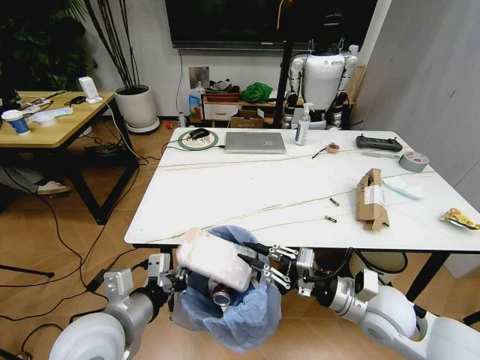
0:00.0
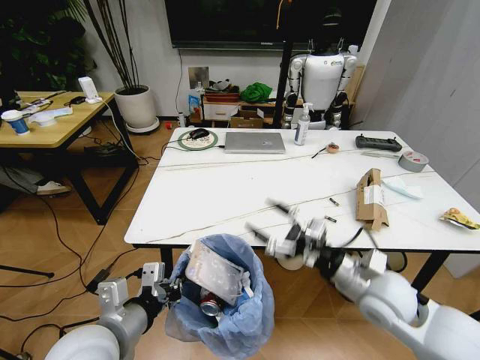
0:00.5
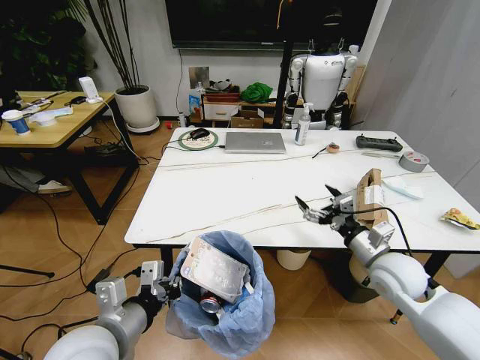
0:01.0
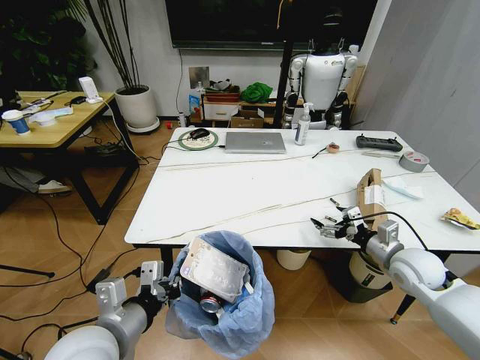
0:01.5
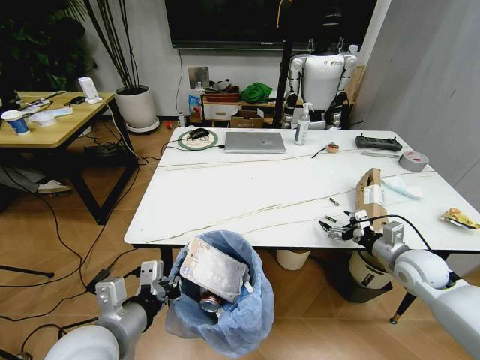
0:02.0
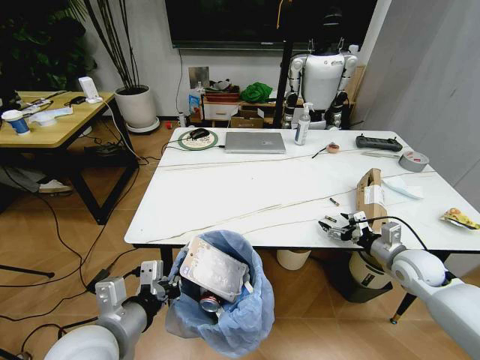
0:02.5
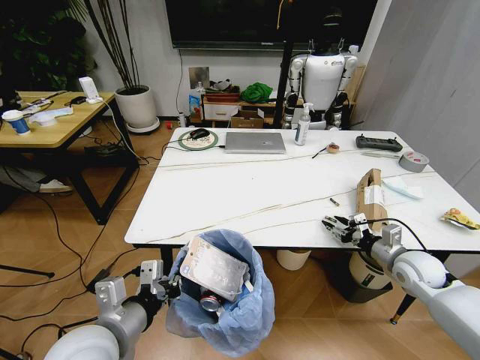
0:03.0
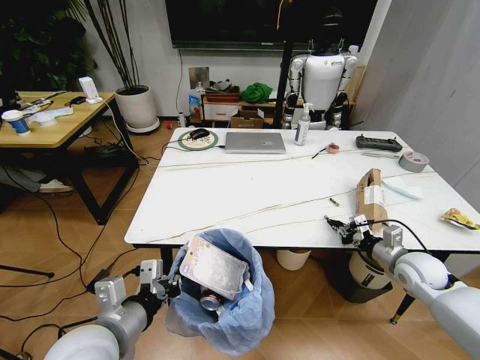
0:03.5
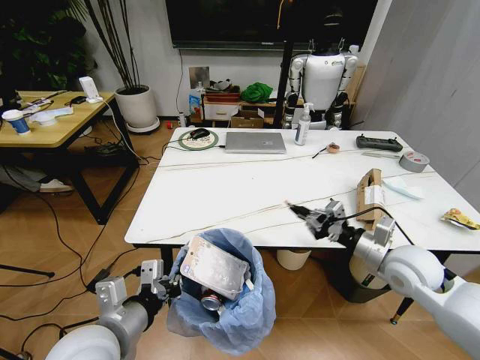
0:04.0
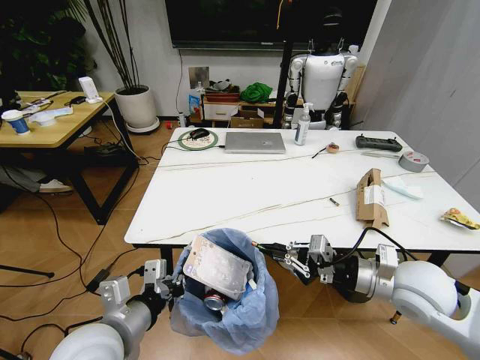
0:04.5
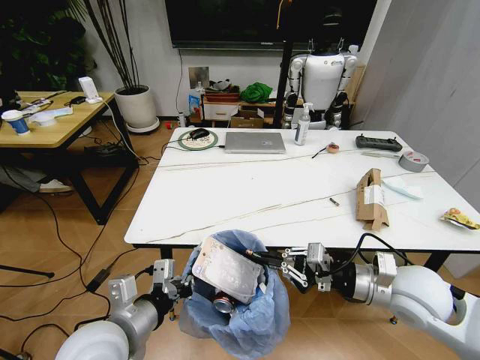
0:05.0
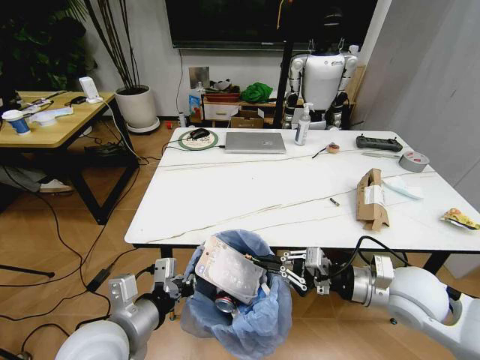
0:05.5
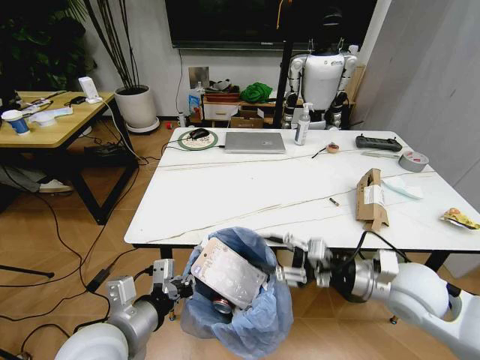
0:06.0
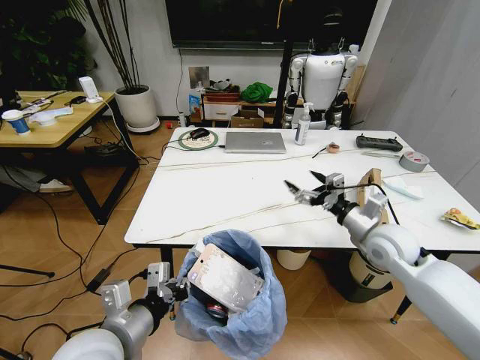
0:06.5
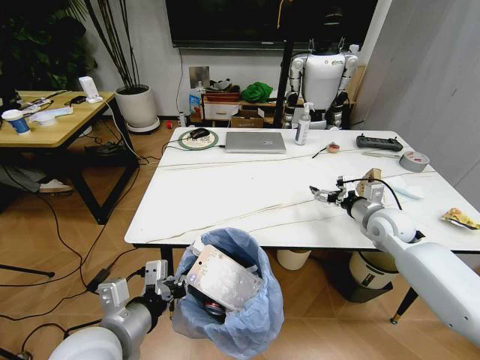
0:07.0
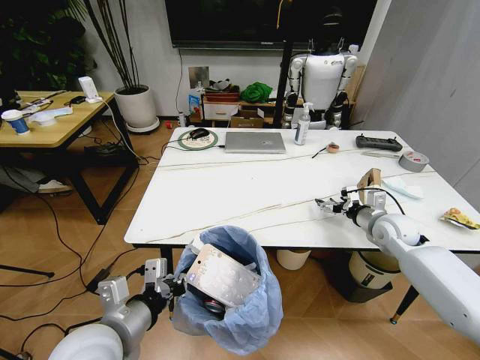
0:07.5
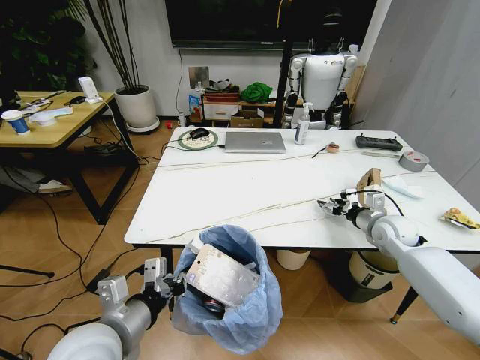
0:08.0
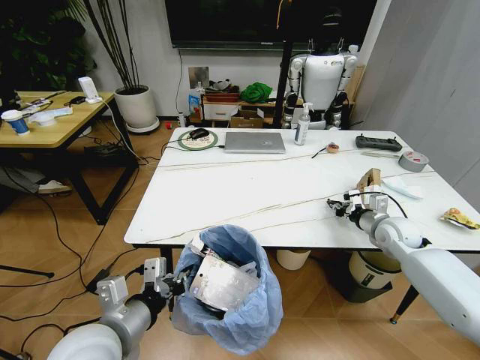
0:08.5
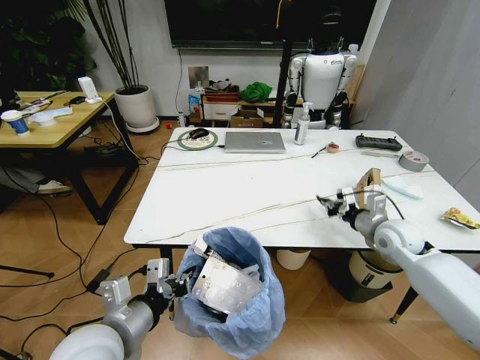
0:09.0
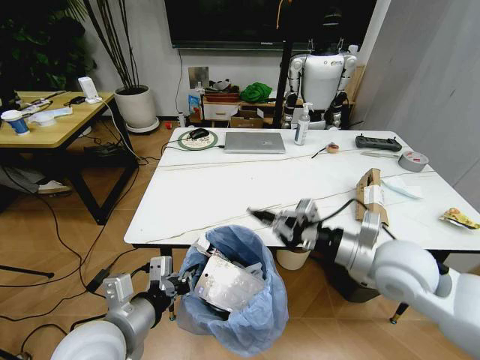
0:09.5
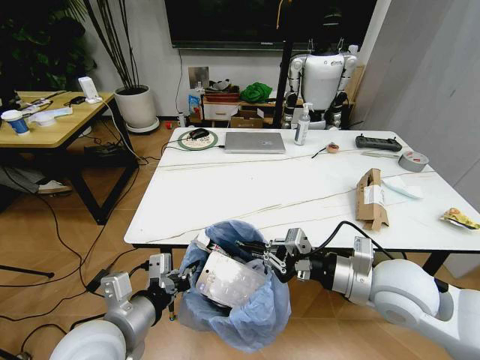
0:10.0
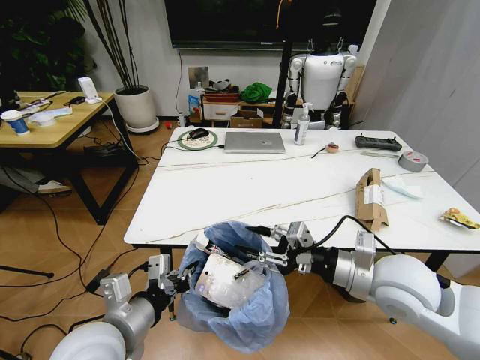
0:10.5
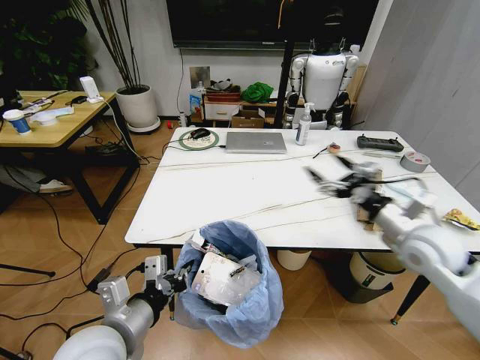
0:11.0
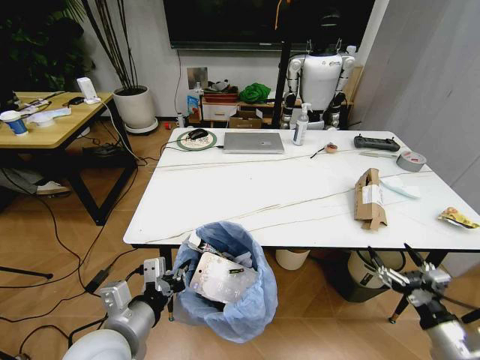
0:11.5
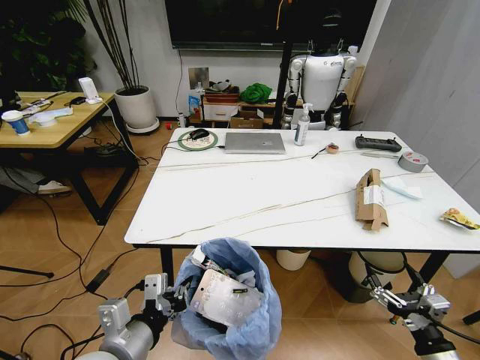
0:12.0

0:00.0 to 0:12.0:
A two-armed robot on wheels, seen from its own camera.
Task of the whole recording: Pick up the trash bin and place the trash from the table into it.
0:00.0 to 0:02.0: The right gripper is displaced to the right and forward by some 20 cm, and opens.
0:02.0 to 0:04.0: The right gripper heads to the left and upward, covering roughly 10 cm, and closes up.
0:04.0 to 0:06.0: The right gripper travels backward and to the left by approximately 10 cm, and opens its fingers.
0:06.0 to 0:08.0: The right gripper travels forward, to the right and downward by about 20 cm.
0:08.0 to 0:10.0: The right gripper travels backward, to the left and upward by some 25 cm, and closes up.
0:10.0 to 0:12.0: The right gripper shifts roughly 25 cm downward, backward and to the right, and opens up.

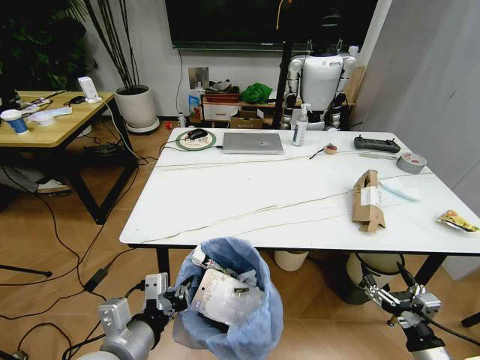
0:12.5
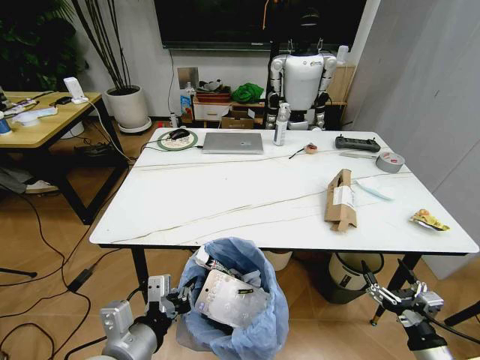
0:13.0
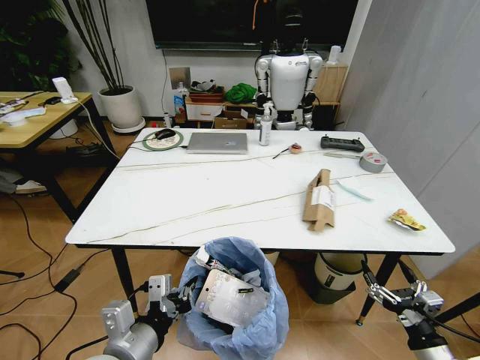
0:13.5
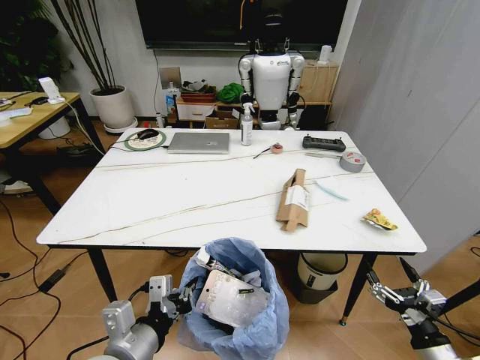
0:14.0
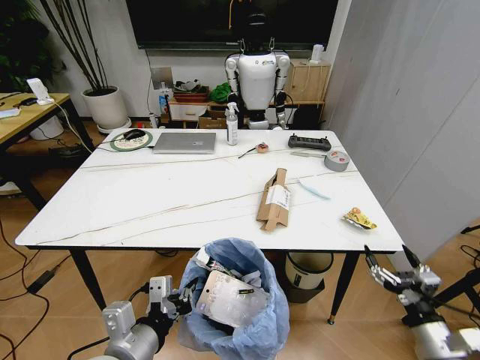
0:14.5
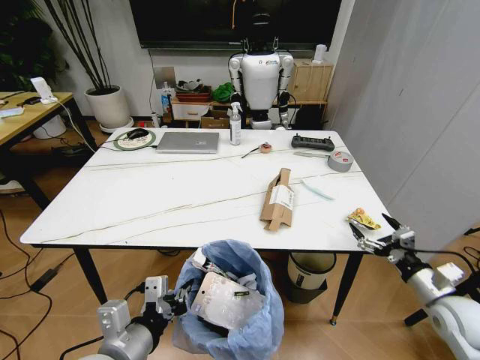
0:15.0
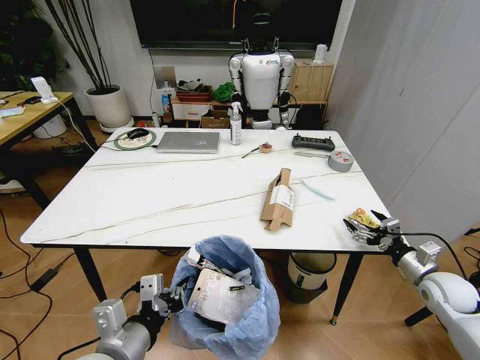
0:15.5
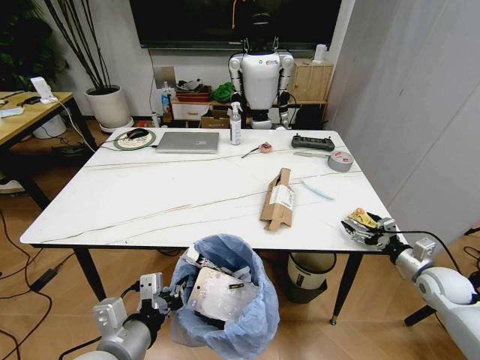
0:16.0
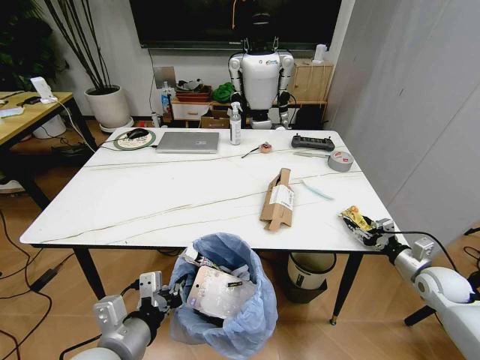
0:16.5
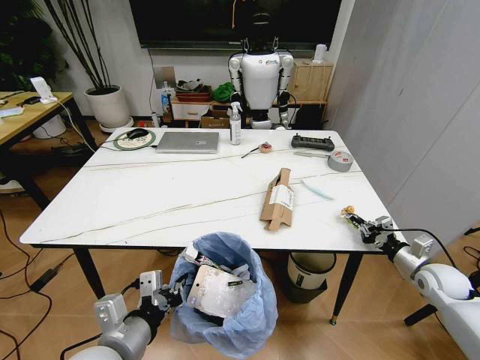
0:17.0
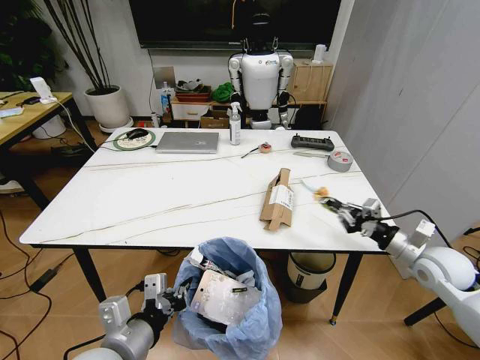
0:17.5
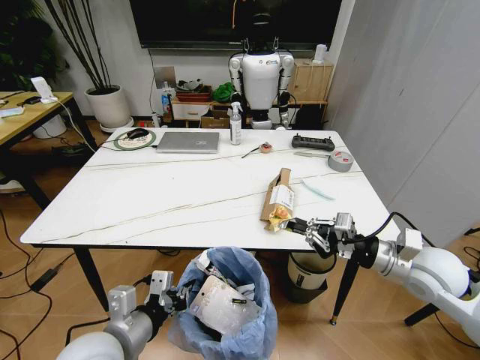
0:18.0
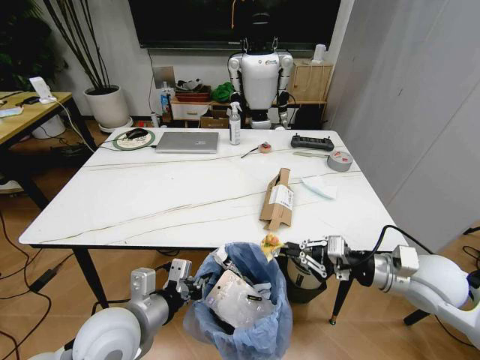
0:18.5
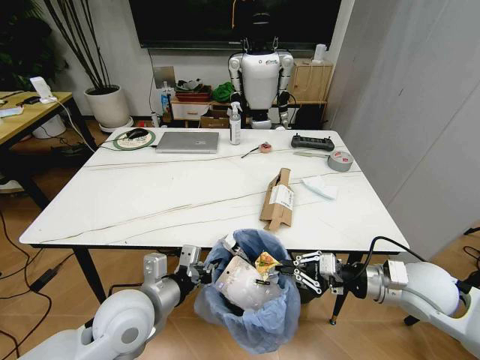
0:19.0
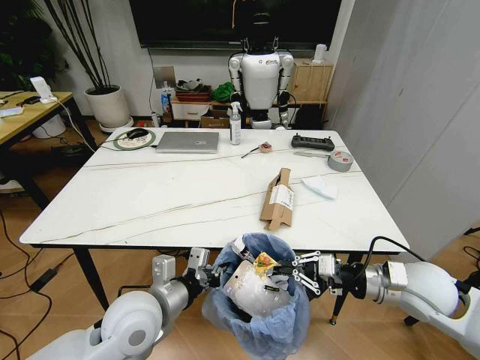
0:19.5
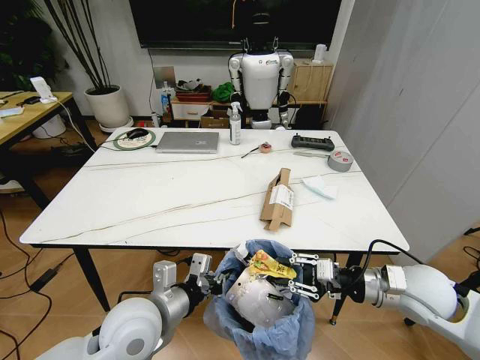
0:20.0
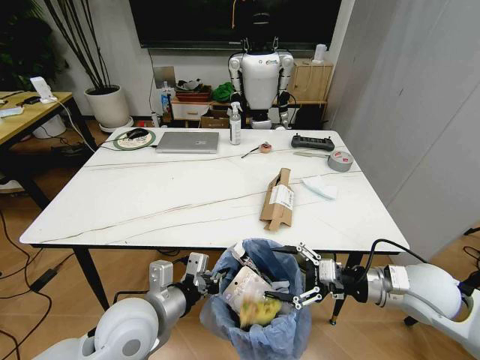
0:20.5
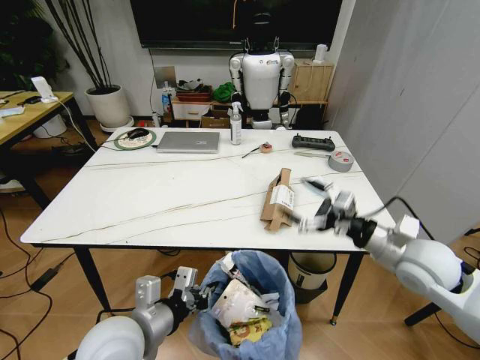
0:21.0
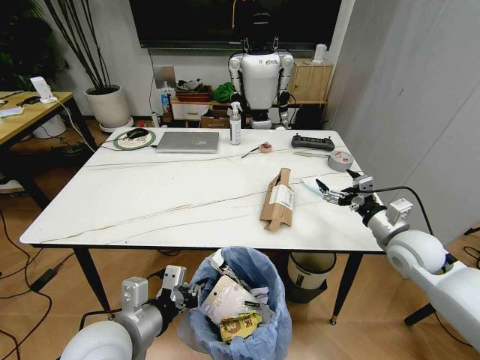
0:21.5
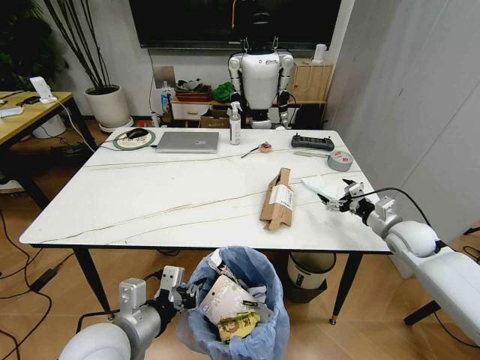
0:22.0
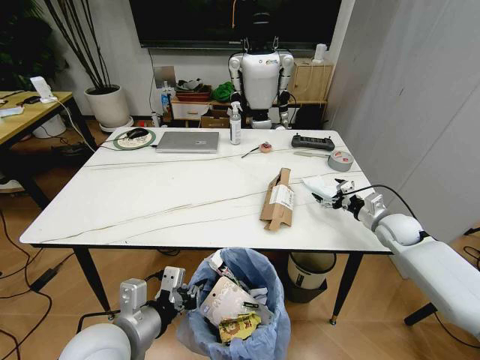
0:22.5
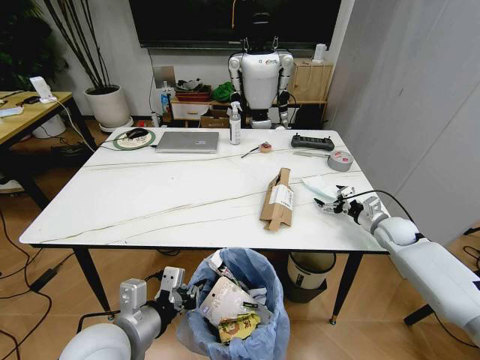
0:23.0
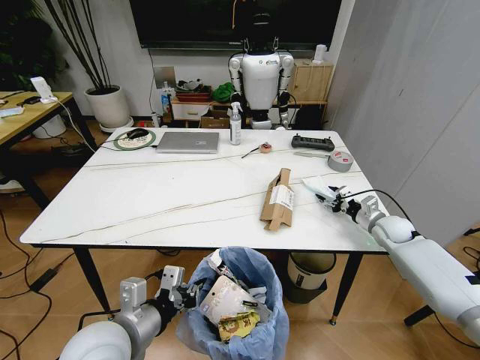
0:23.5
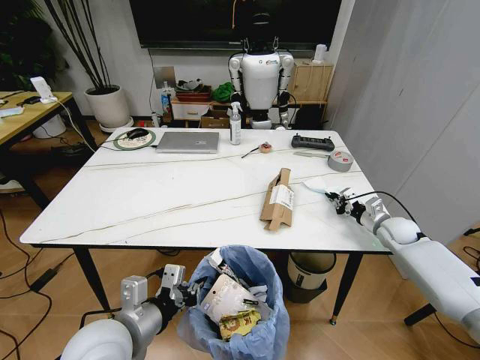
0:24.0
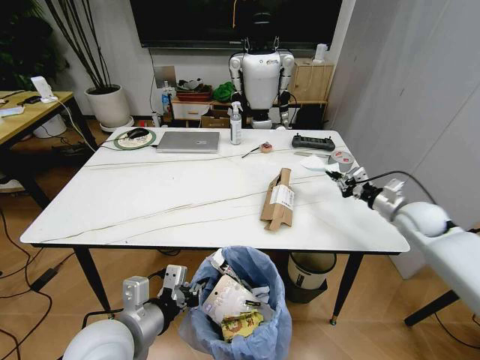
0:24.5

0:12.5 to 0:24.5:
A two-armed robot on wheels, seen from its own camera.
Task of the whole recording: Pick up the trash bin and place the trash from the table into it.
0:12.5 to 0:14.5: The right gripper changes place by roughly 5 cm.
0:14.5 to 0:16.5: The right gripper moves forward and to the right, about 20 cm, and closes up.
0:16.5 to 0:18.5: The left gripper shifts approximately 5 cm forward, while the right gripper moves to the left and upward, roughly 20 cm, and closes its fingers.
0:18.5 to 0:20.5: The right gripper opens its fingers.
0:20.5 to 0:22.5: The left gripper ends up approximately 5 cm from where it was; the right gripper is displaced forward, to the right and downward by approximately 20 cm.
0:22.5 to 0:24.5: The right gripper goes some 5 cm upward, and closes up.

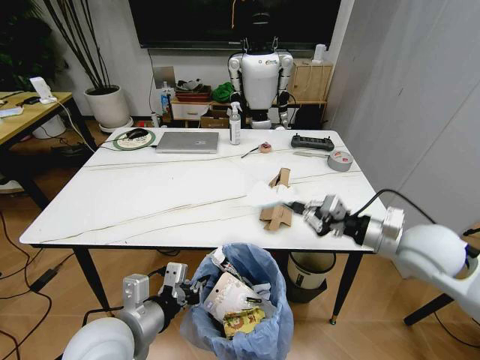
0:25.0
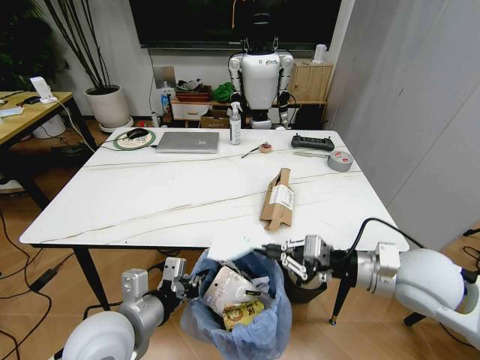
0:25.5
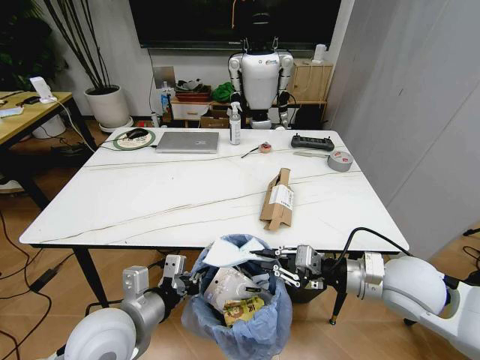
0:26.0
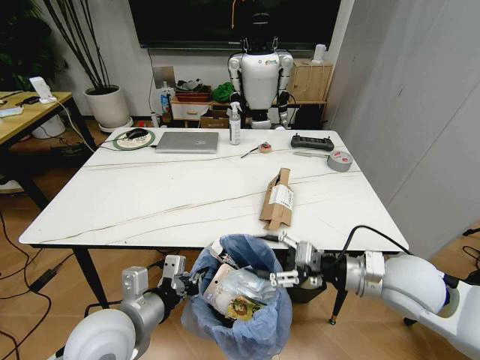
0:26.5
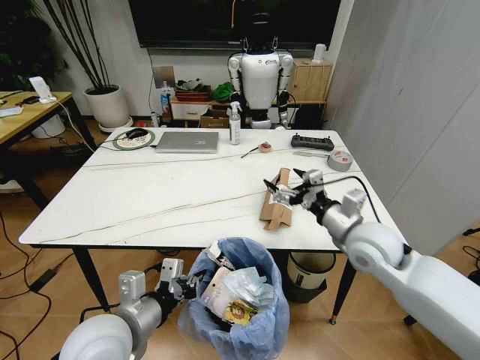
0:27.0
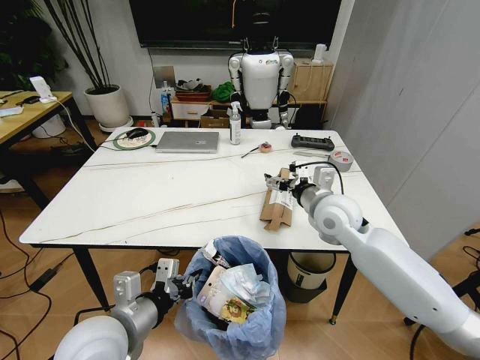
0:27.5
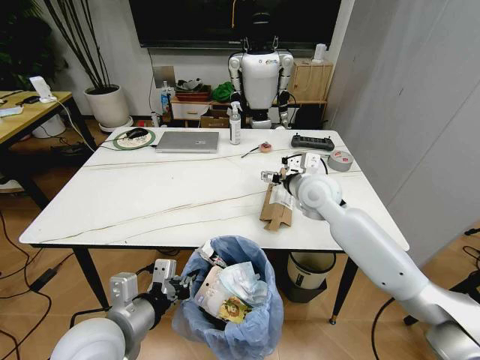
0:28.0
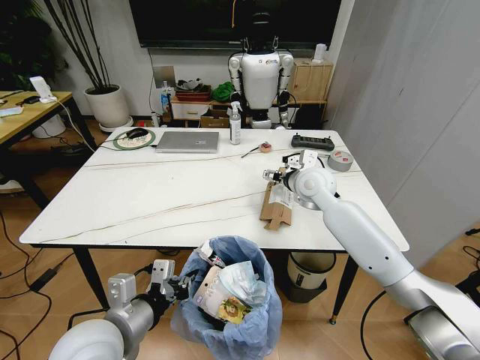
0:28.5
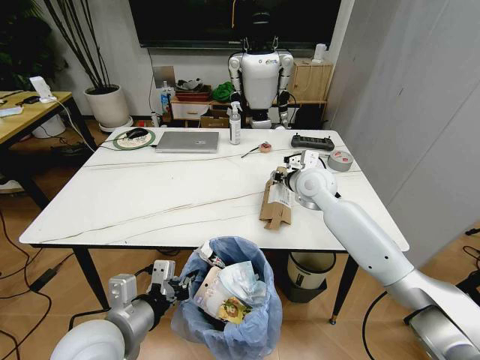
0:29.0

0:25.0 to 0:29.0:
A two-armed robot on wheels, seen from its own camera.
Task of the whole recording: Pick up the trash bin and place the trash from the table into it.
0:25.0 to 0:27.0: The right gripper travels to the left by some 10 cm, and opens up.
0:27.0 to 0:29.0: The right gripper heads forward and to the left, covering some 20 cm, and closes.
